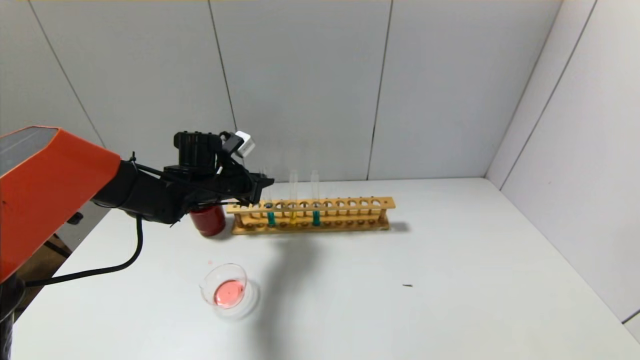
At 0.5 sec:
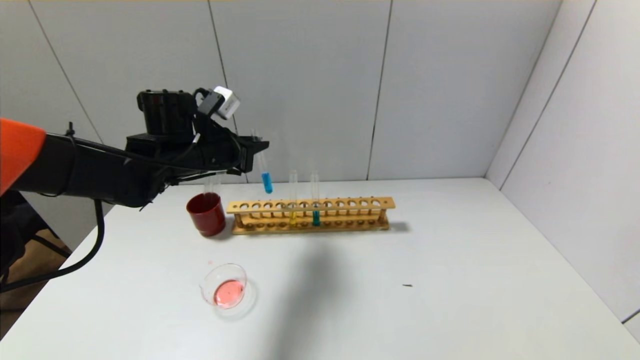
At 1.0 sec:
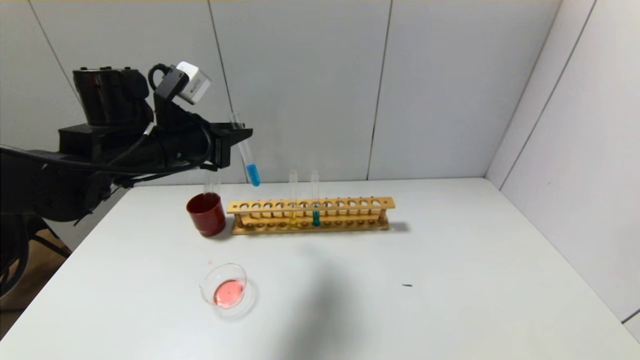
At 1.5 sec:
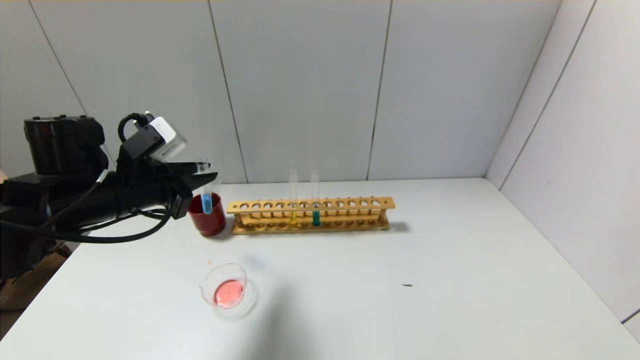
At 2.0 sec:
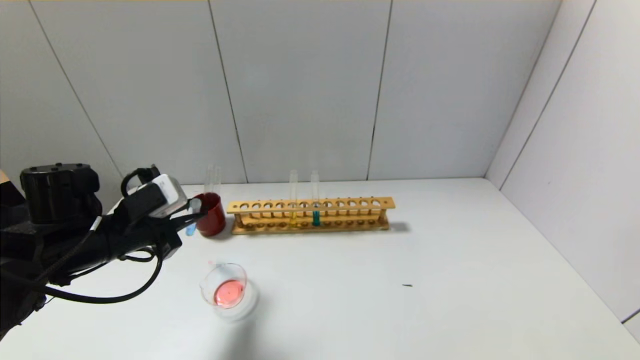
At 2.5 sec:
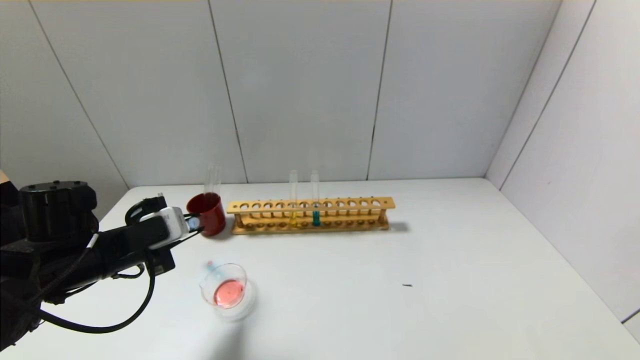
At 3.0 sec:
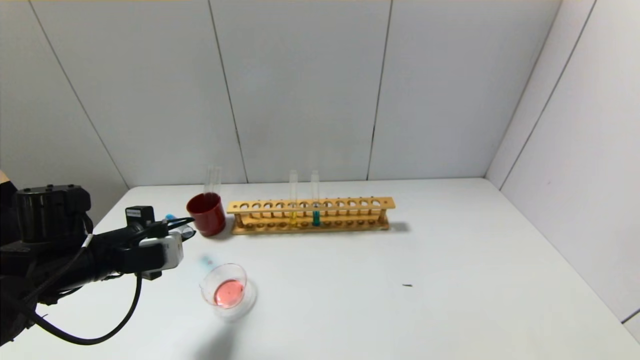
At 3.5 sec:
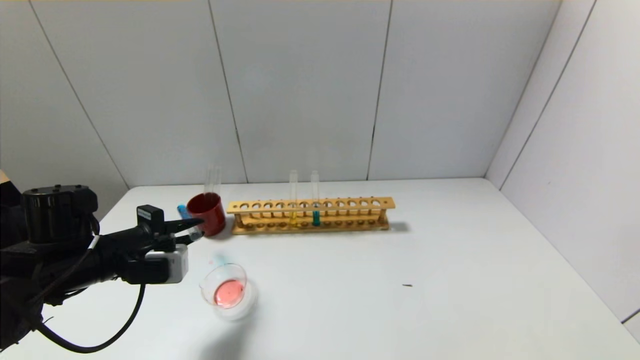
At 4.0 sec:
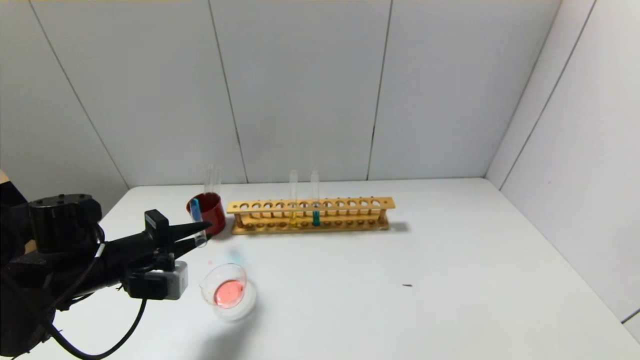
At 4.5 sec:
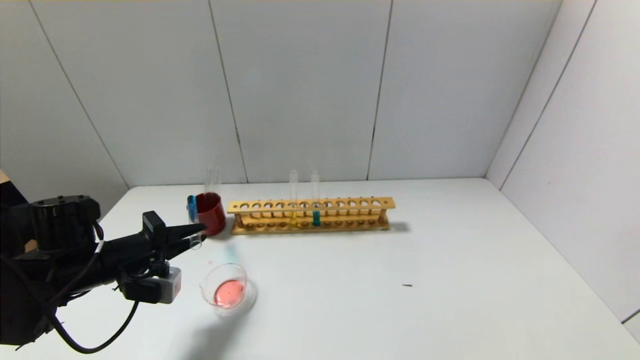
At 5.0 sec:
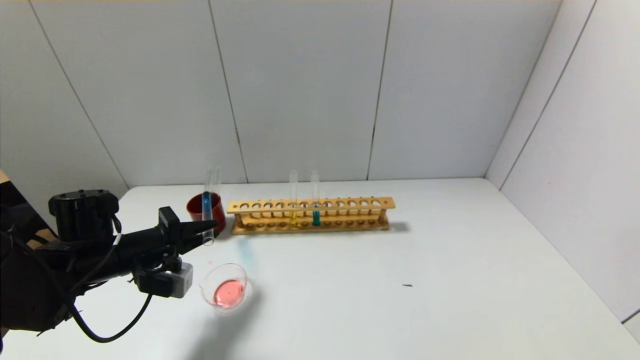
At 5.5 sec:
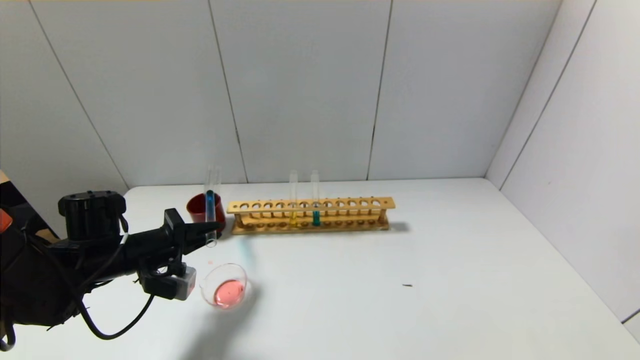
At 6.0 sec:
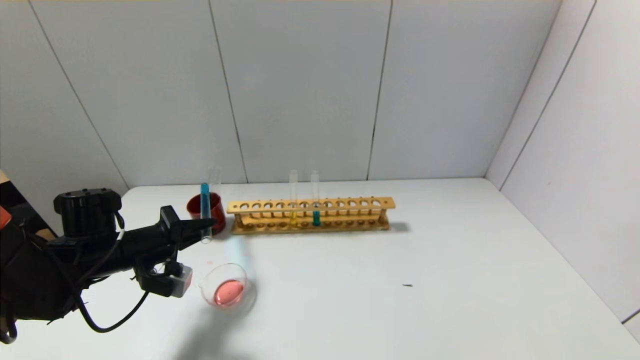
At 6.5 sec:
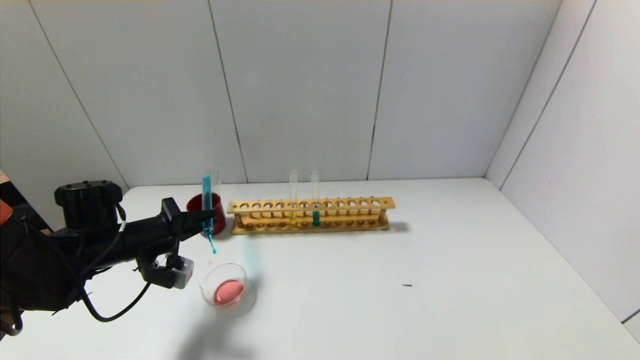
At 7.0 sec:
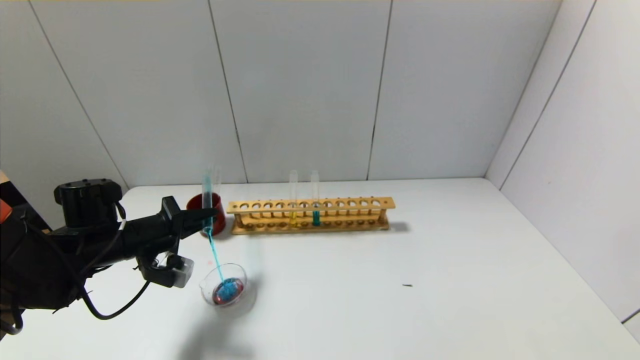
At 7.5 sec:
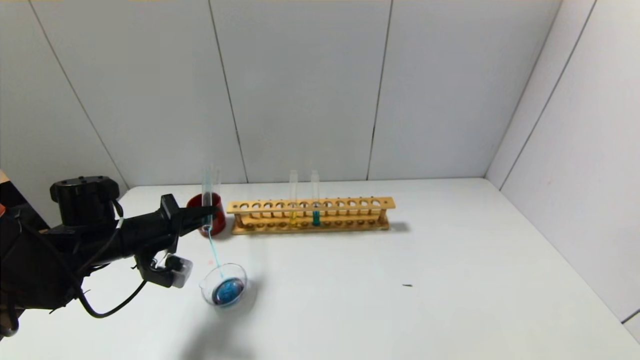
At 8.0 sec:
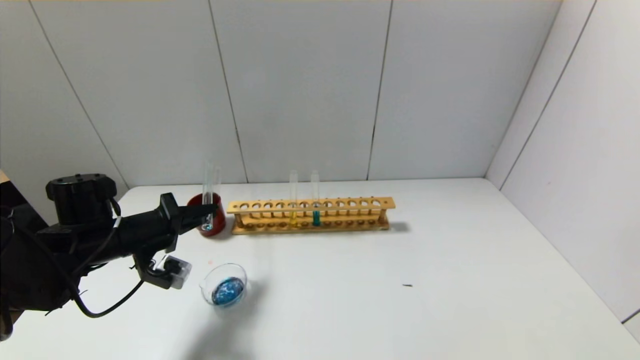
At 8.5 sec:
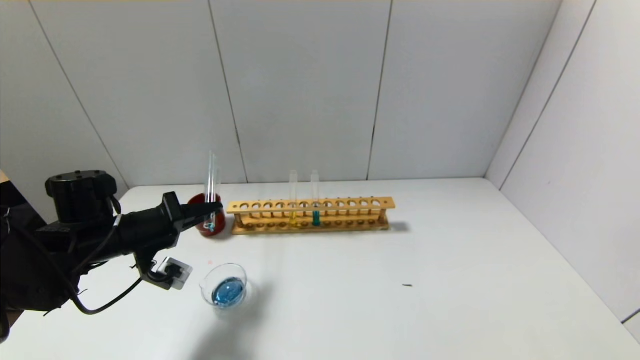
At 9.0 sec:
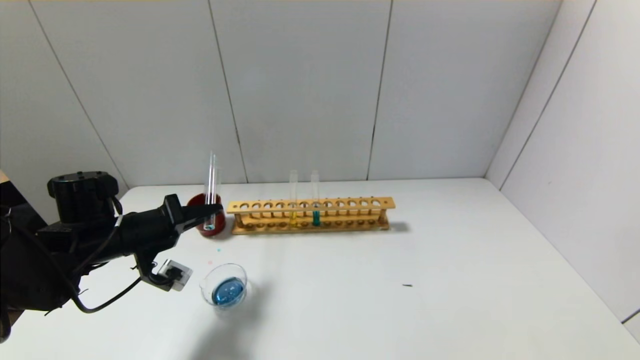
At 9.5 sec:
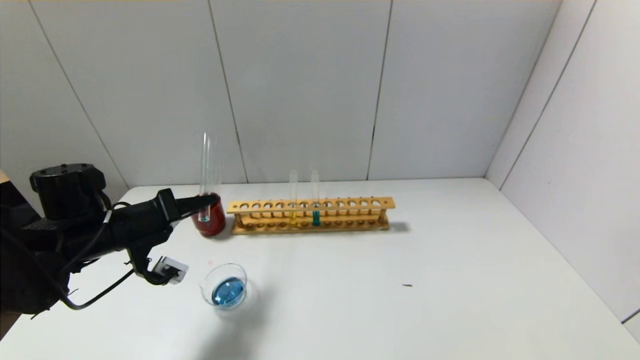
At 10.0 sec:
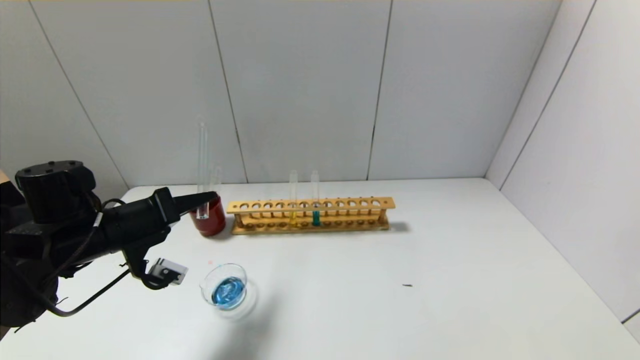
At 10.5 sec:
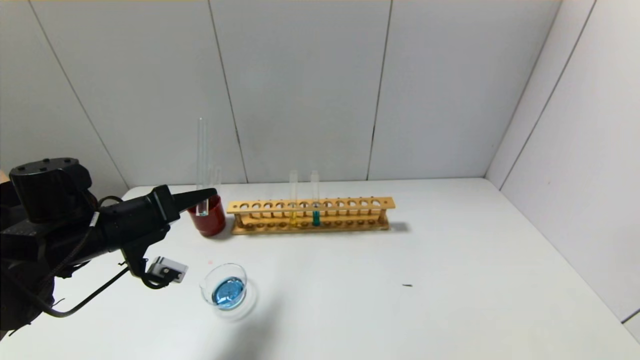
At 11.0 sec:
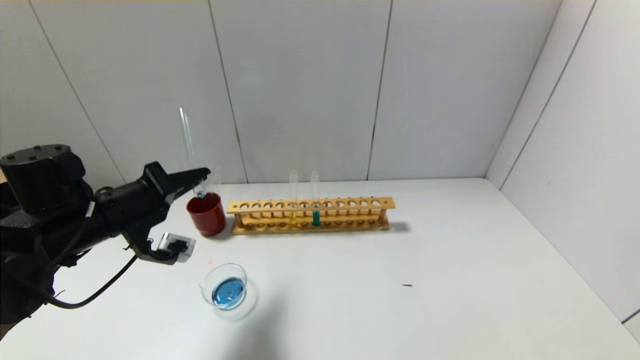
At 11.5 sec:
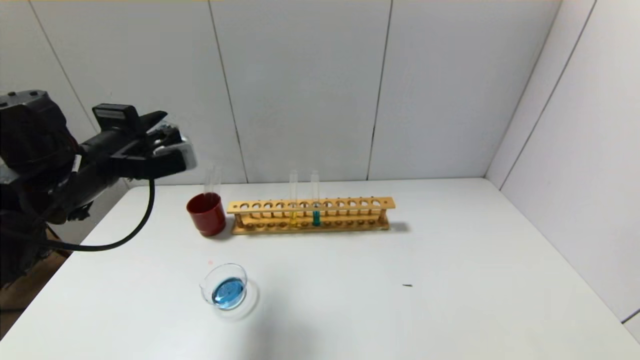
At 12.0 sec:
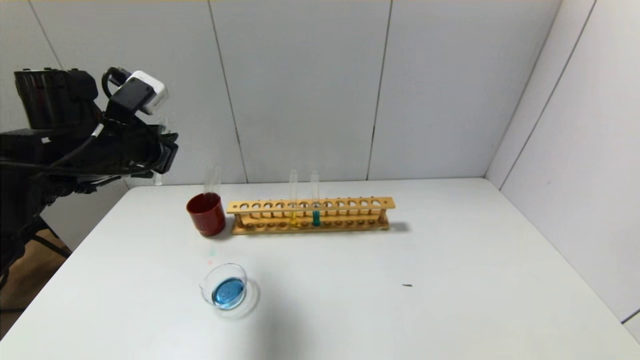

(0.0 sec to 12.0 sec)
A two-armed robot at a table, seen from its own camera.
Step, 0.0 sec - 10.5 sec: Pour the blue reagent into the graduated cylinder with the left gripper.
0.0 sec - 2.0 sec: The left gripper is displaced backward and to the left by approximately 15 cm.
4.0 sec - 6.0 sec: The grippers move only a little.
6.0 sec - 8.0 sec: The grippers move only a little.
10.0 sec - 12.0 sec: The left gripper shifts about 10 cm upward.

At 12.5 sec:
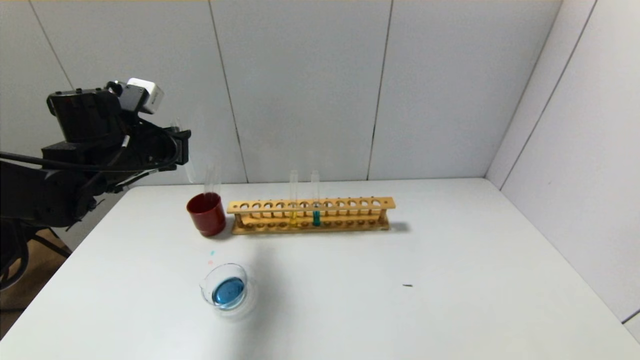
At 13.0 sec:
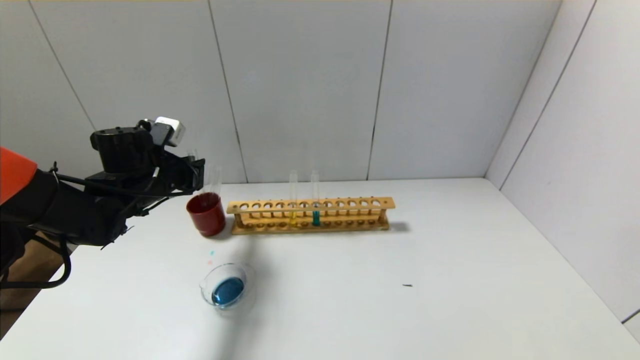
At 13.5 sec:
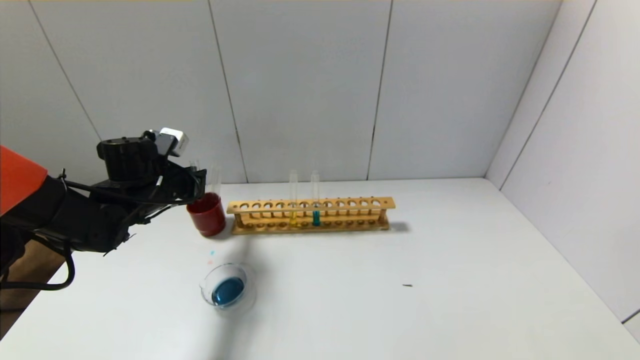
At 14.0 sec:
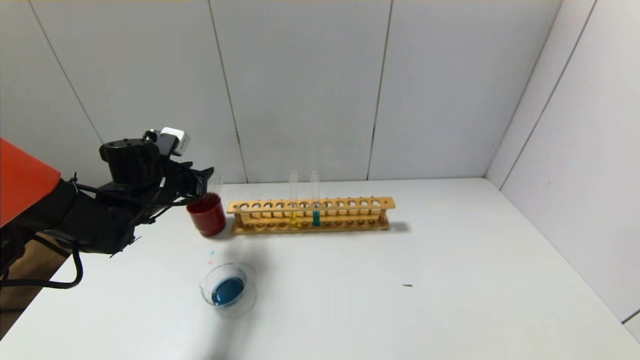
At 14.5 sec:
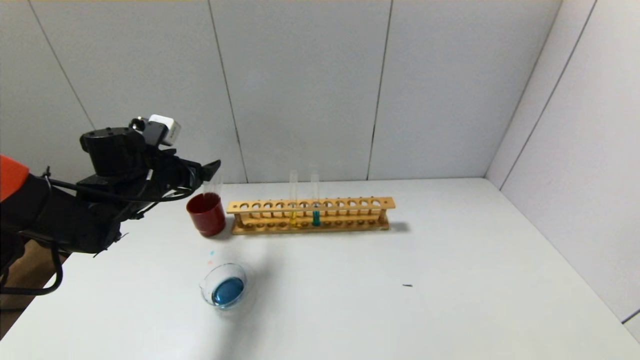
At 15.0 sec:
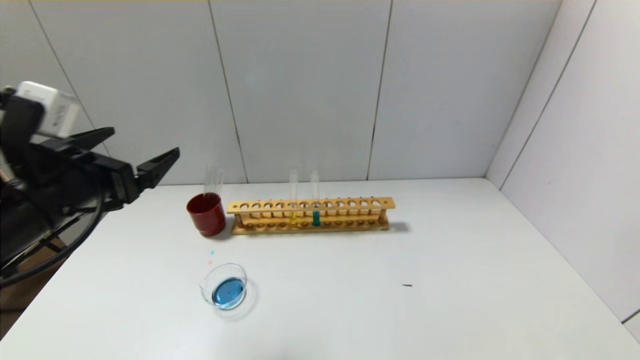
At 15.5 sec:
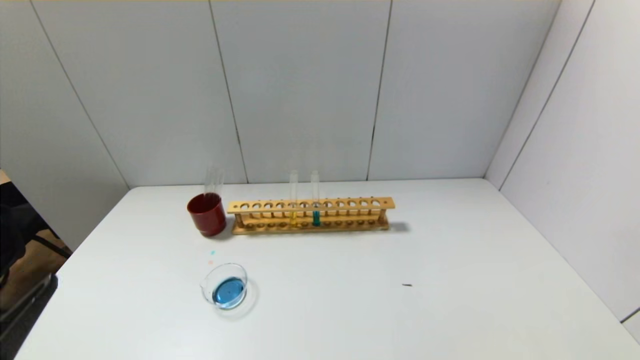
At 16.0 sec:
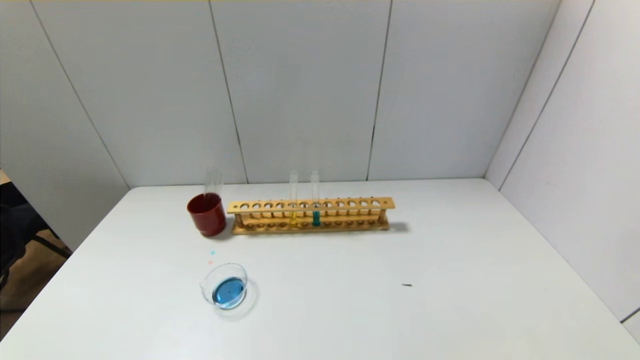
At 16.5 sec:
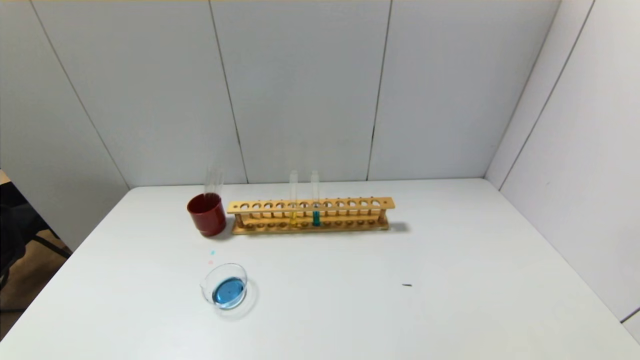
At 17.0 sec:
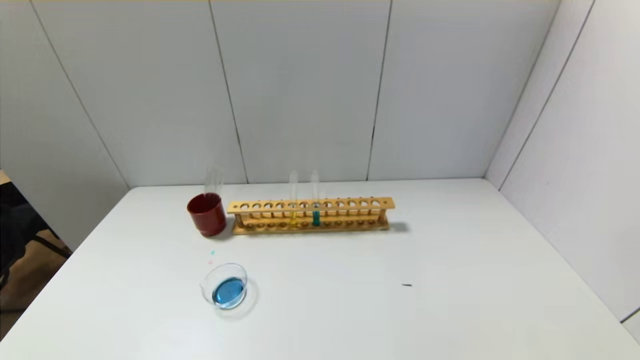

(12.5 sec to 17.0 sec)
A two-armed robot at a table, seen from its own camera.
Step, 12.5 sec - 14.0 sec: Place the test tube into the brown cup with the left gripper.
12.5 sec - 14.5 sec: The left gripper heads downward, covering about 5 cm, and opens its fingers.
14.5 sec - 17.0 sec: The left gripper travels backward by some 40 cm.

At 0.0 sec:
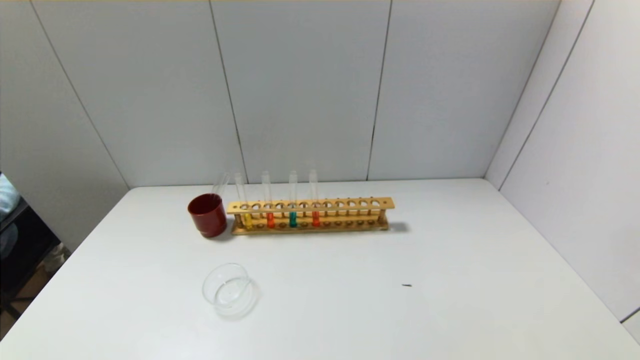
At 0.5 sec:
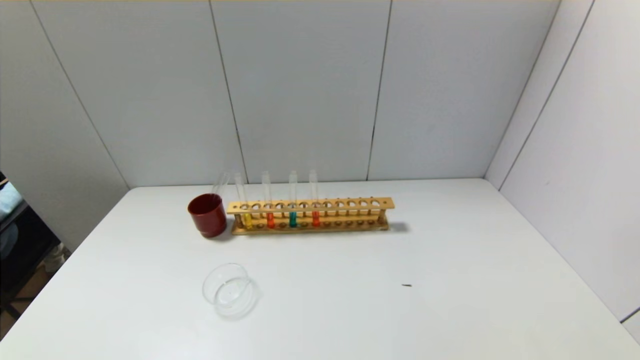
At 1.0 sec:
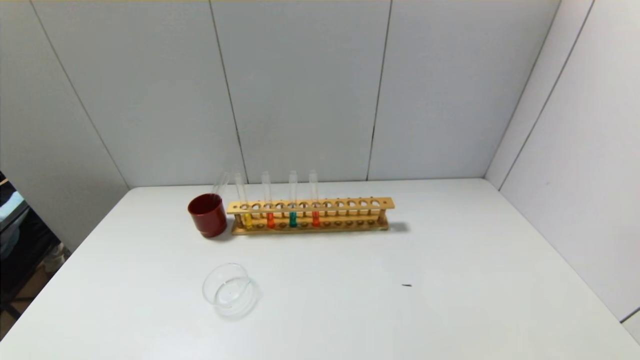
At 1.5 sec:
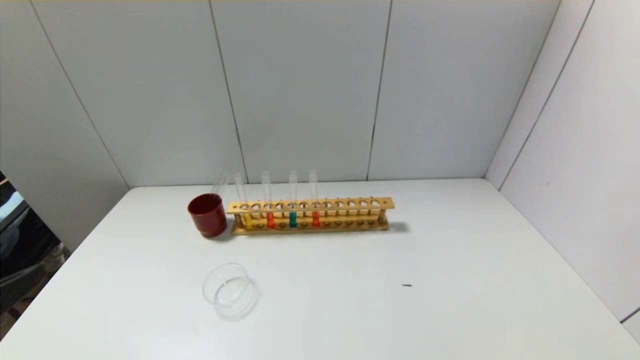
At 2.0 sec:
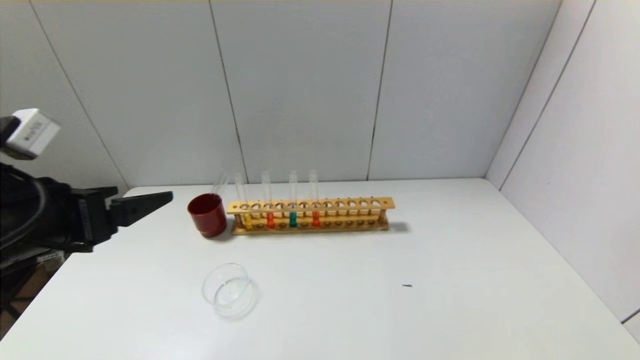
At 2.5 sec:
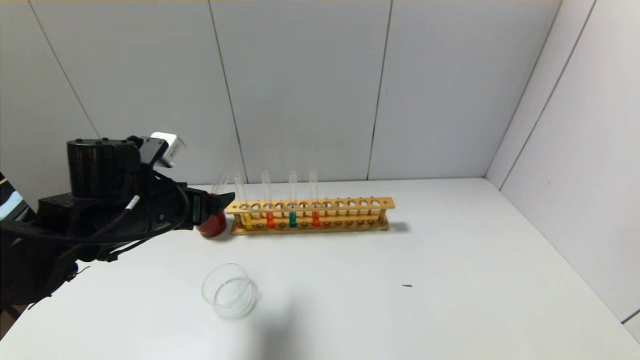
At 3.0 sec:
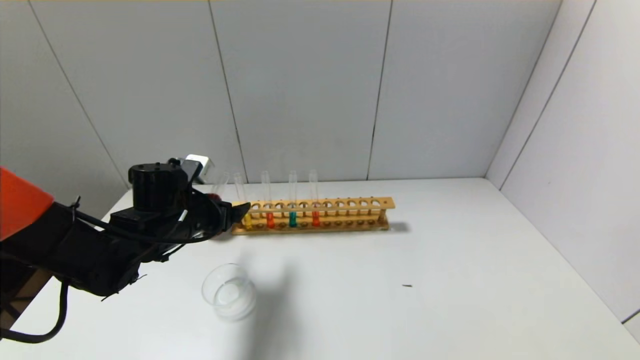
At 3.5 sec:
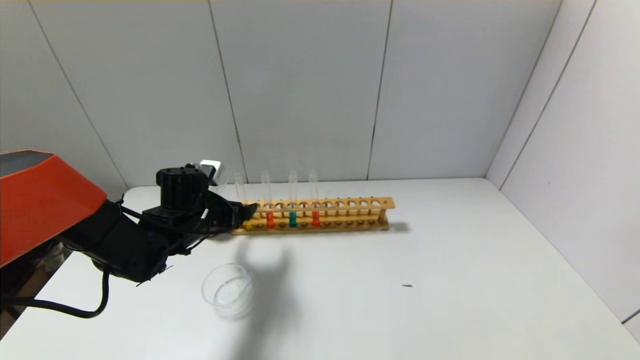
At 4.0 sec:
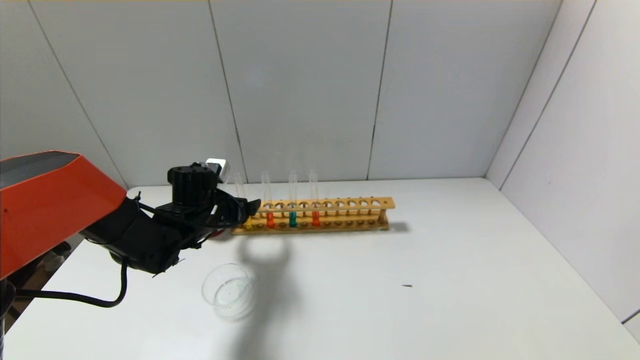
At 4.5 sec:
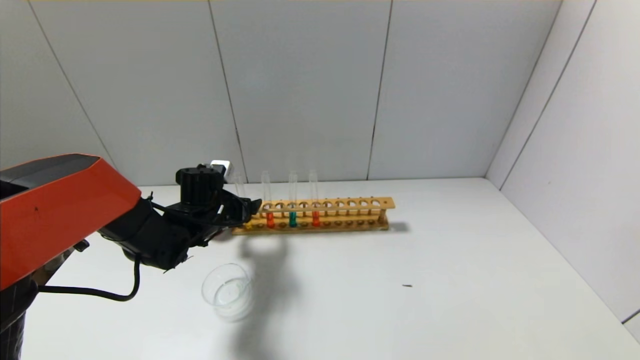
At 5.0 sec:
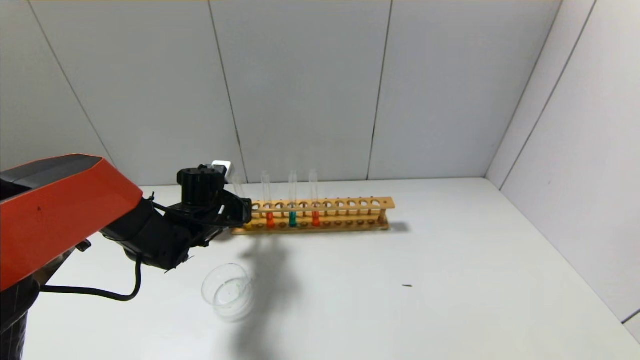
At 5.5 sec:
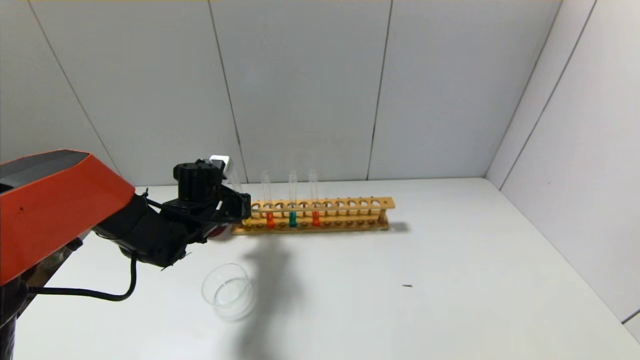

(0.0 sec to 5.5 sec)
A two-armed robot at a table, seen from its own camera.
Step, 0.0 sec - 5.0 sec: Grasp the yellow reagent with the left gripper.
0.0 sec - 2.0 sec: The left gripper is displaced forward and upward by roughly 25 cm.
2.0 sec - 3.5 sec: The left gripper shifts about 20 cm forward and downward.
3.5 sec - 5.5 sec: The left gripper closes up.
